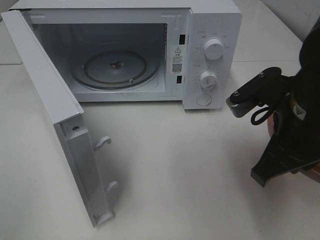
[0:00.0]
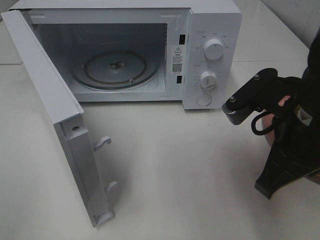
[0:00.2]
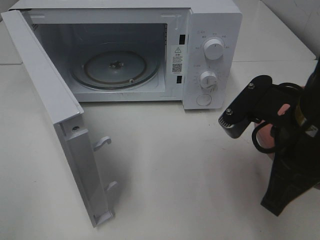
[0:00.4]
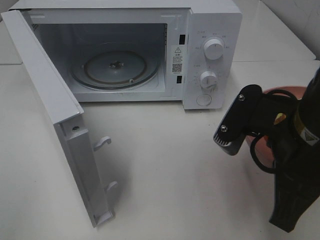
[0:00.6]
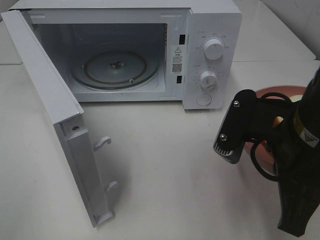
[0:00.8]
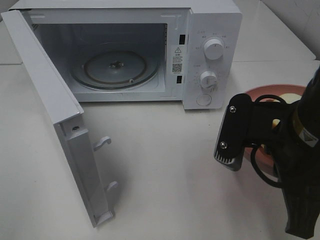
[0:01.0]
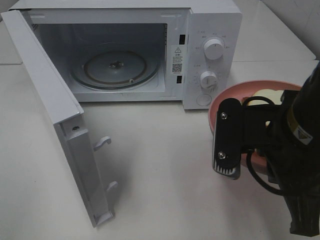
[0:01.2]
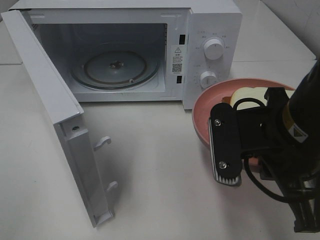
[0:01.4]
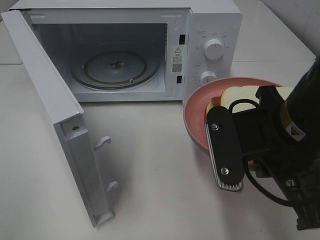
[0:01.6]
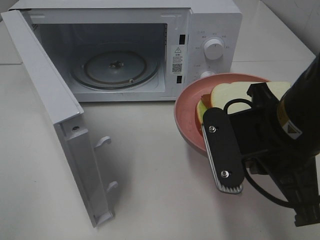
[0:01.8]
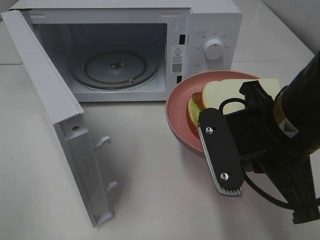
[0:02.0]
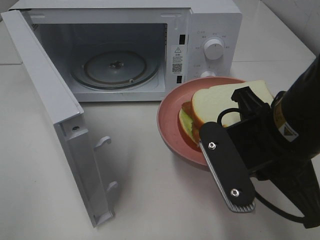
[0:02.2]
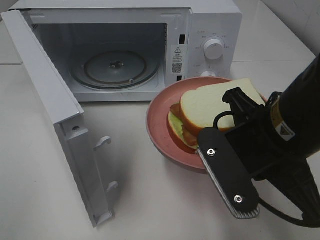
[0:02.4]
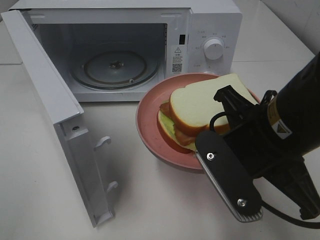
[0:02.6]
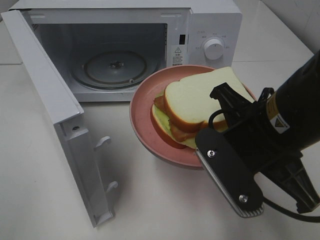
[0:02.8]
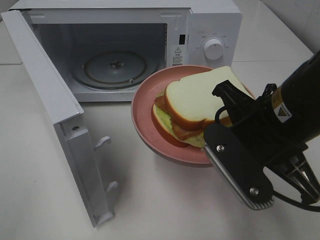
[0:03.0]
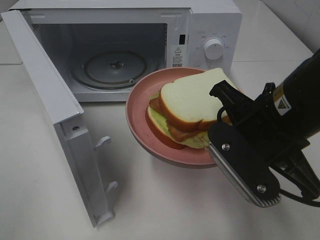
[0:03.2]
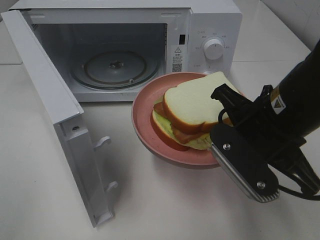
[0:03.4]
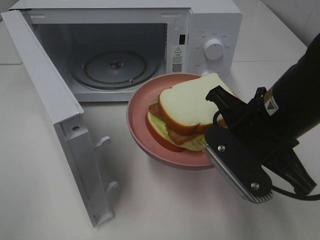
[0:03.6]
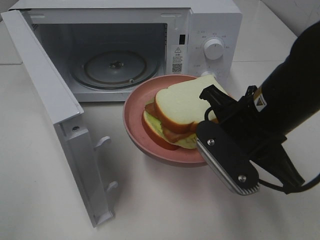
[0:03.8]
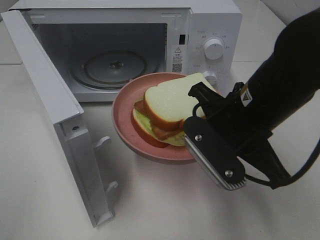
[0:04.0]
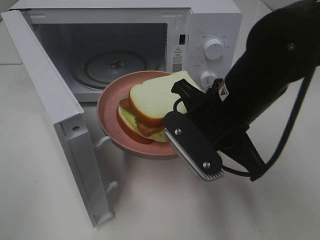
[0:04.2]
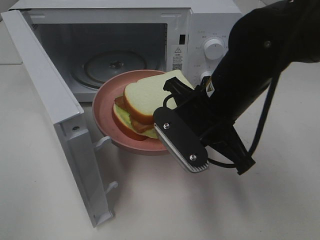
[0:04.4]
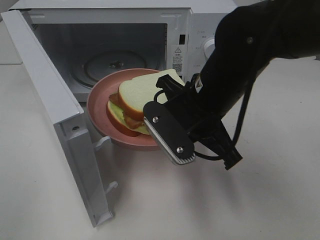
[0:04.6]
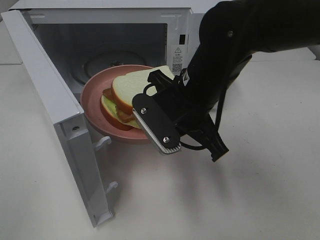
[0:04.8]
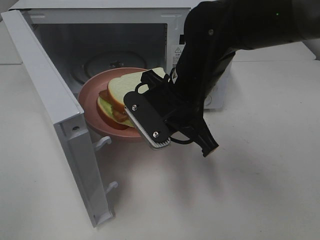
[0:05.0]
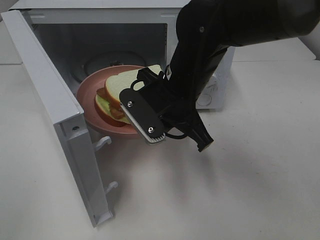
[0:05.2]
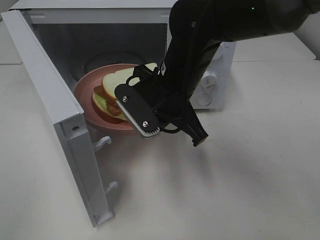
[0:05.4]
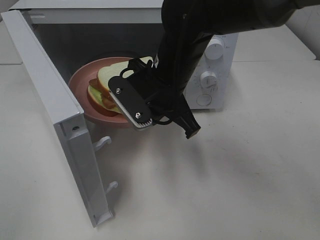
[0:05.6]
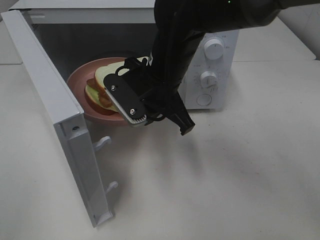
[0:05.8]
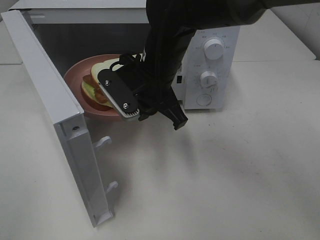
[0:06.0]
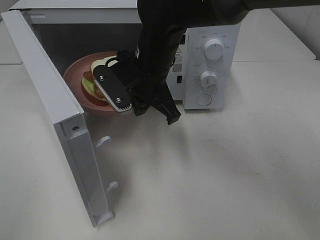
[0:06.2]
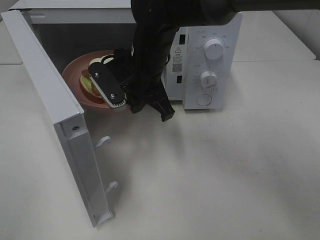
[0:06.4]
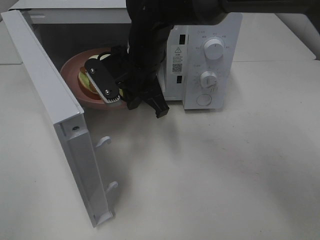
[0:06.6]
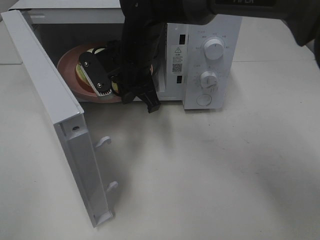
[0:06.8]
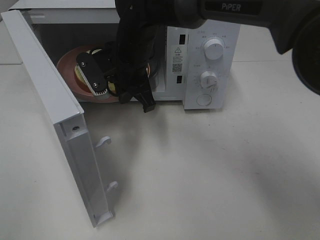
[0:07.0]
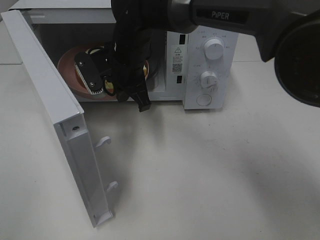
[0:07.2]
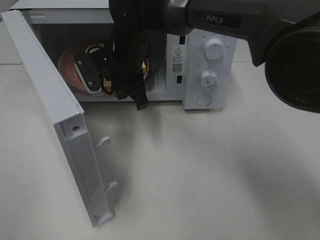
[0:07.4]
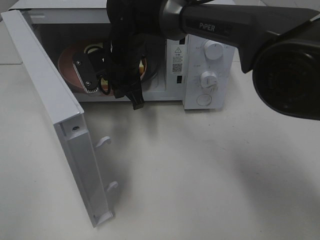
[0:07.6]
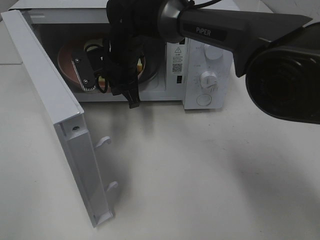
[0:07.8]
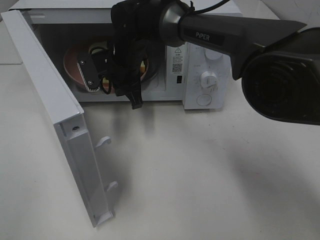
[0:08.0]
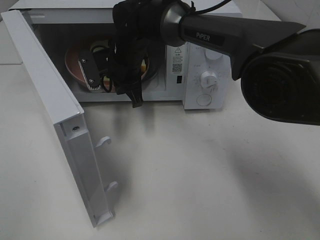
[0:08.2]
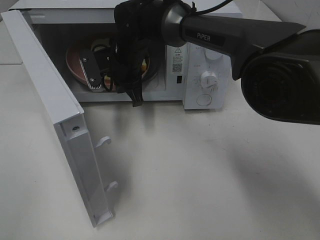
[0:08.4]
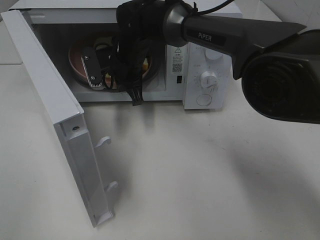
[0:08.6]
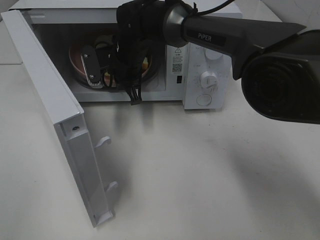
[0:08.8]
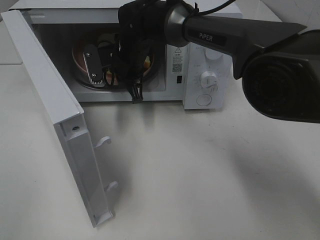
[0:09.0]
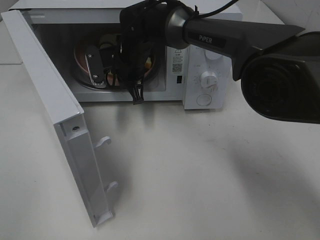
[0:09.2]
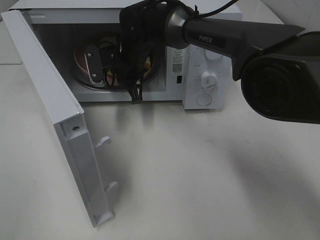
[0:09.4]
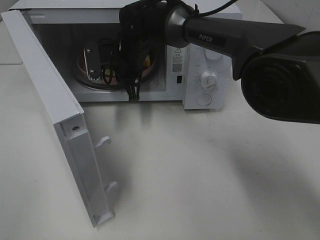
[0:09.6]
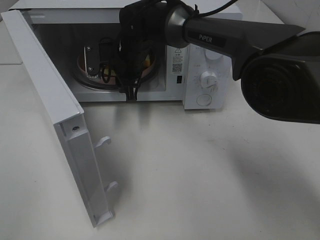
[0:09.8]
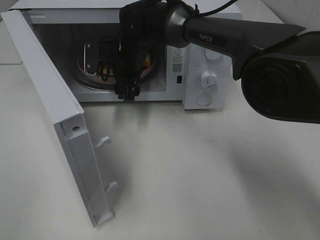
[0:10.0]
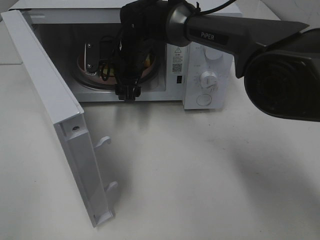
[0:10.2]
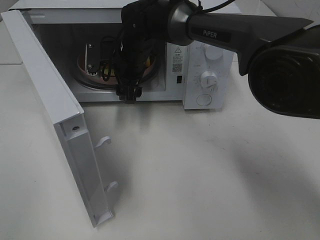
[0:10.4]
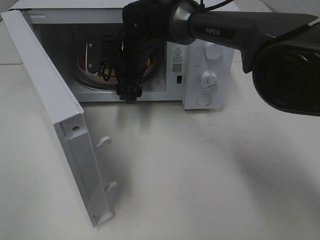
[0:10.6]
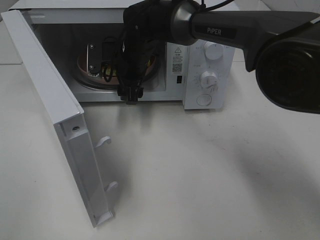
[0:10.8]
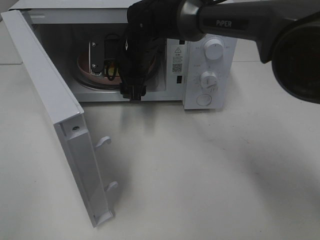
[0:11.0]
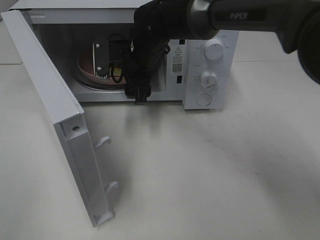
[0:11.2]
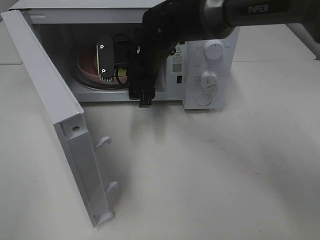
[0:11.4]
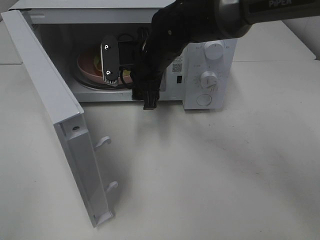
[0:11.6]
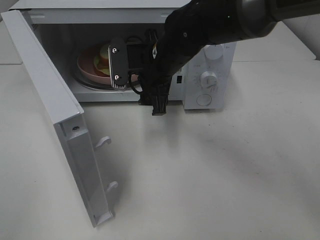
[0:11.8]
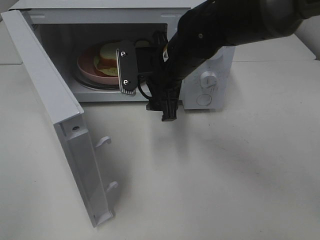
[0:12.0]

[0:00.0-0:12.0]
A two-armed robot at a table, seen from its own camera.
Task of the whole recording: Heat Sandwich.
Step, 0:00.0 to 0:10.8: Right hand: place the plate in the microwave.
0:03.0 to 0:04.4: The right gripper is displaced forward and to the left by some 10 cm.
0:04.4 to 0:06.0: The right gripper is displaced forward and to the left by approximately 10 cm.
0:06.0 to 0:07.6: The right gripper is displaced forward and to the left by roughly 10 cm.
0:07.6 to 0:09.0: The grippers make only small movements.
0:09.0 to 0:10.4: The right gripper opens up.
0:10.4 to 0:12.0: The right gripper travels backward and to the right by roughly 15 cm.

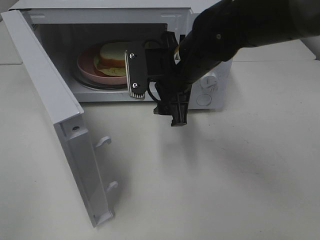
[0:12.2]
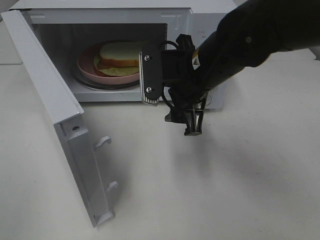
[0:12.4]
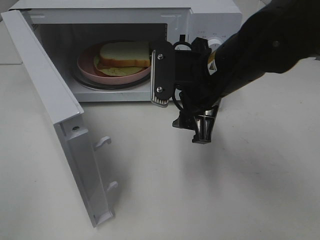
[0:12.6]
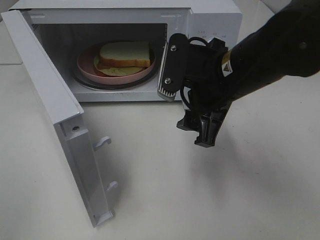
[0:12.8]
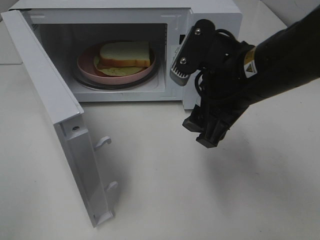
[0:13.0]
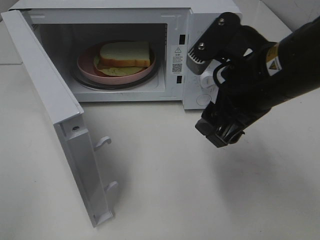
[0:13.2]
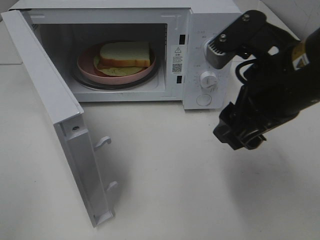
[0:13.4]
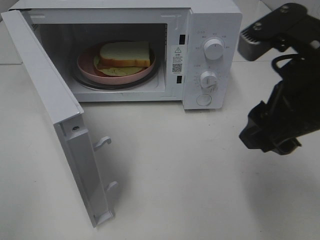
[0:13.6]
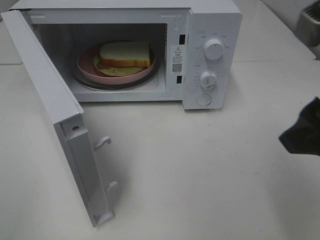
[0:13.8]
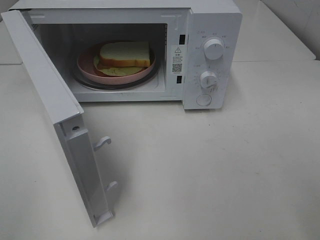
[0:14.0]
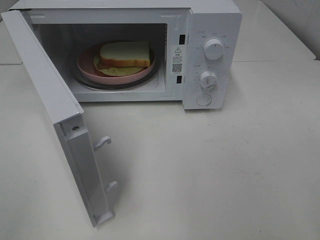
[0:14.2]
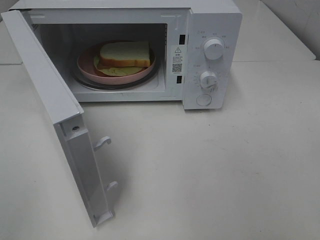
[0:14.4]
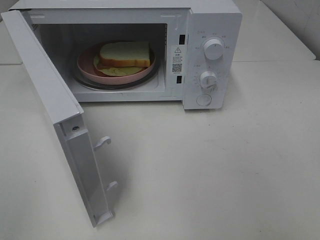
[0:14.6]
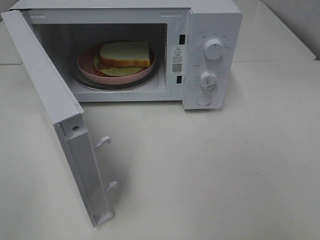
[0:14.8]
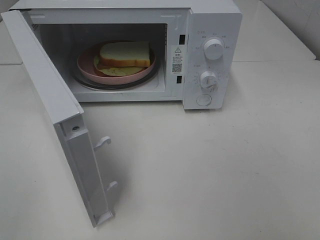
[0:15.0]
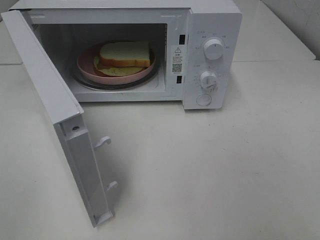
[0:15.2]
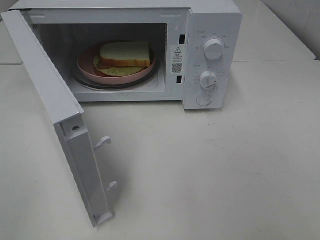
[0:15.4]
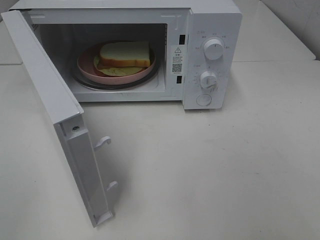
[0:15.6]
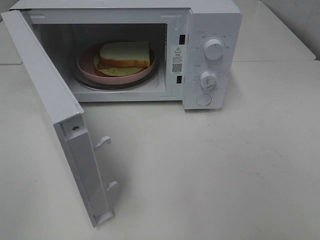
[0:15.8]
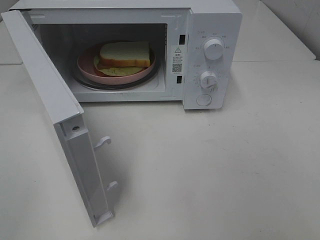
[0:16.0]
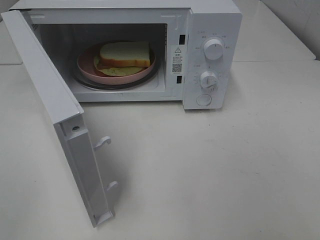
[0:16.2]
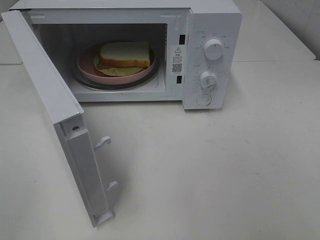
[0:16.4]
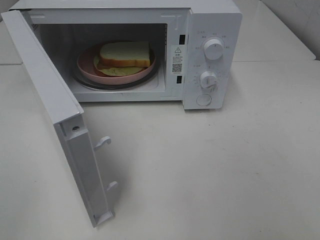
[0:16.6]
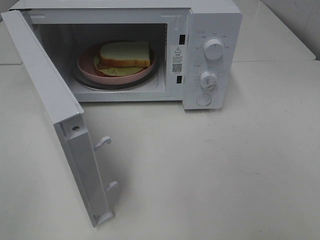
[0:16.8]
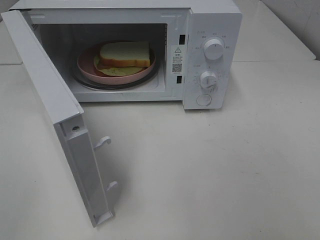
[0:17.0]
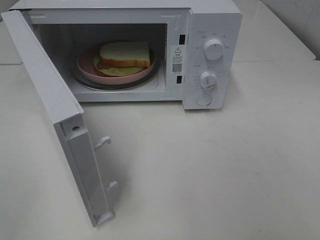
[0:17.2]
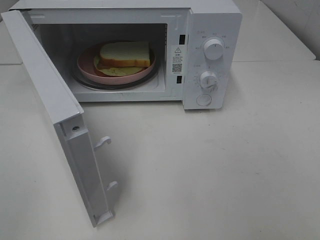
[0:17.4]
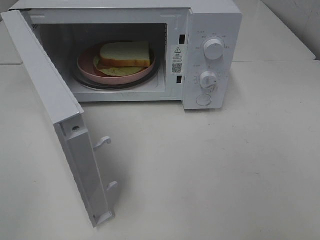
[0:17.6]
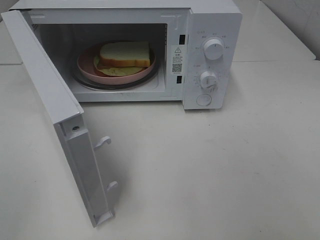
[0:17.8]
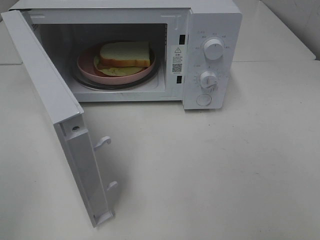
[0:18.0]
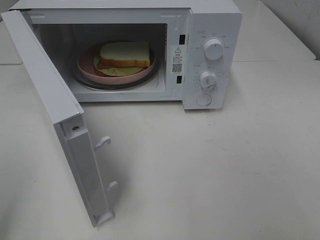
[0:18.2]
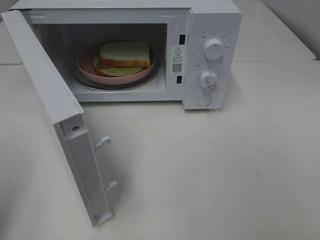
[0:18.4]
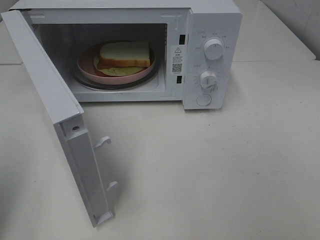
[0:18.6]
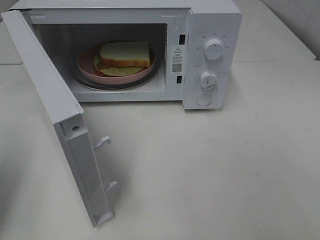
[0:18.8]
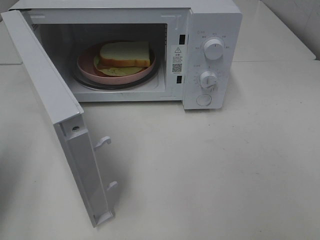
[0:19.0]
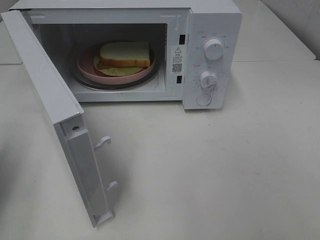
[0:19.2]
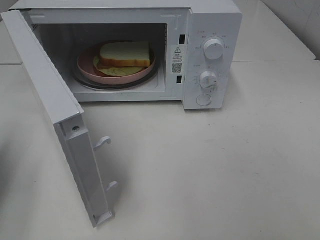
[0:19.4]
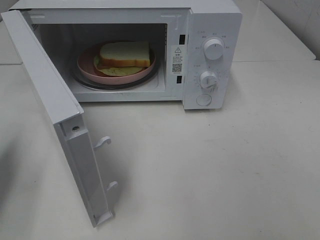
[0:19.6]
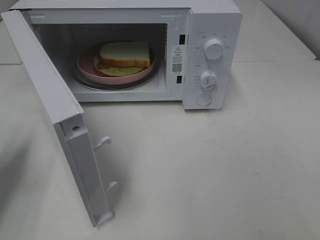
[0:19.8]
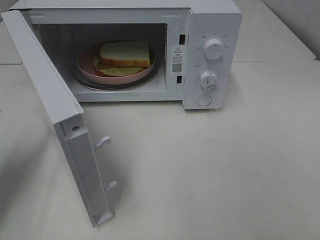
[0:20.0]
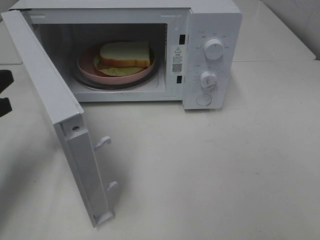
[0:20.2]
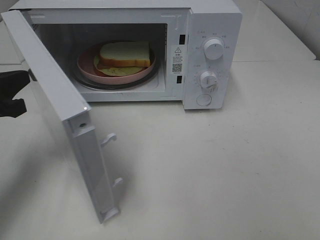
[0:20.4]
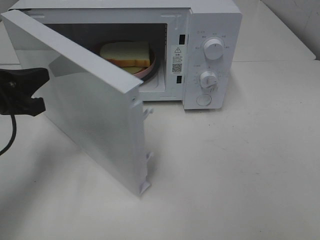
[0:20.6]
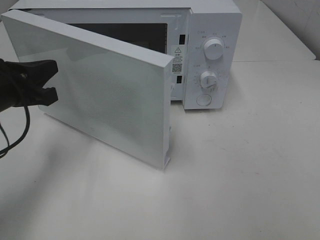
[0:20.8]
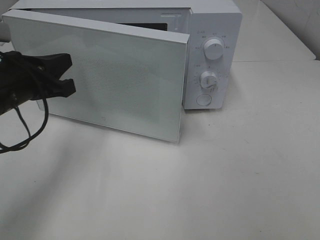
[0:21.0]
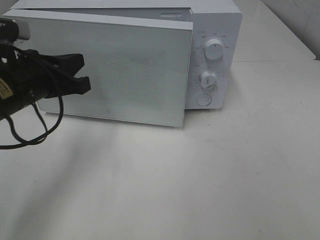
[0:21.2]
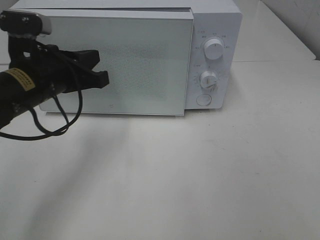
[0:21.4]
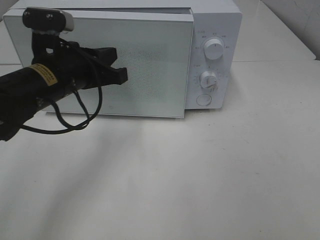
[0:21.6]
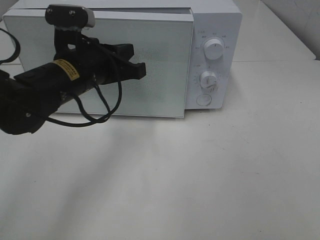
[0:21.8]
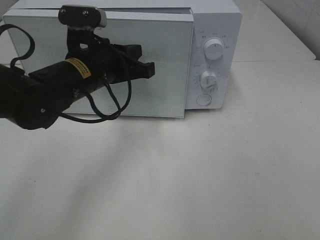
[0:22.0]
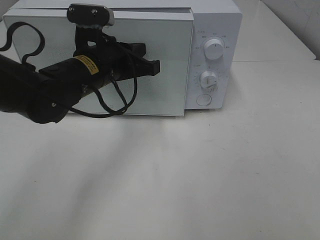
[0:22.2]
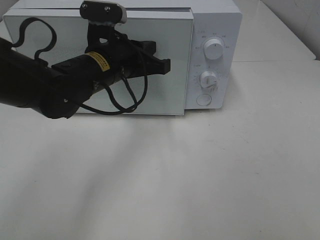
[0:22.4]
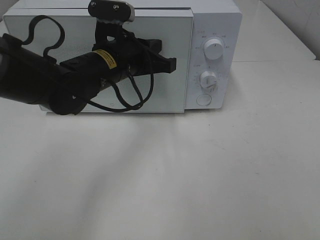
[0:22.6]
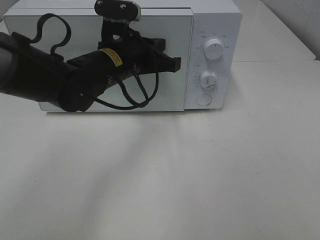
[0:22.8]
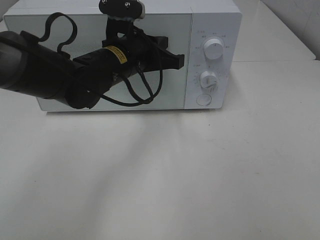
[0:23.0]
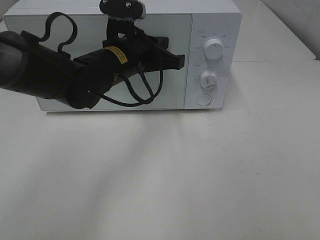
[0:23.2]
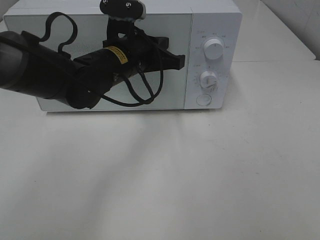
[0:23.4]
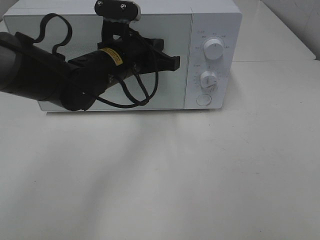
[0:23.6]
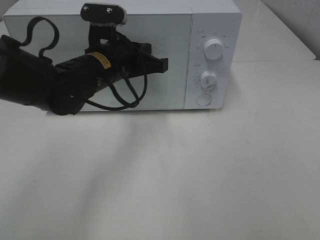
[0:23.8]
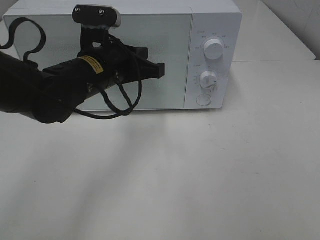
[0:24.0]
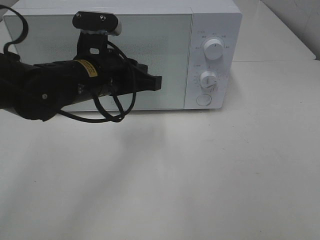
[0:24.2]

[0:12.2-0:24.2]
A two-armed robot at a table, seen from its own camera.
Task of the whole recording: Heat Sandwich.
Step, 0:12.2 to 0:23.8: Left hand: close the microwave door.
0:12.2 to 0:13.8: The right gripper moves backward, to the right and upward, roughly 25 cm.
0:13.8 to 0:15.2: The right gripper is displaced backward and to the right by roughly 15 cm.
0:18.2 to 0:19.8: The left gripper heads forward and downward, covering about 20 cm, and closes up.
0:19.8 to 0:21.2: The left gripper shifts about 15 cm to the right and forward.
0:21.2 to 0:22.6: The left gripper goes some 15 cm to the right and forward.
0:22.6 to 0:24.2: The grippers move only a little.
